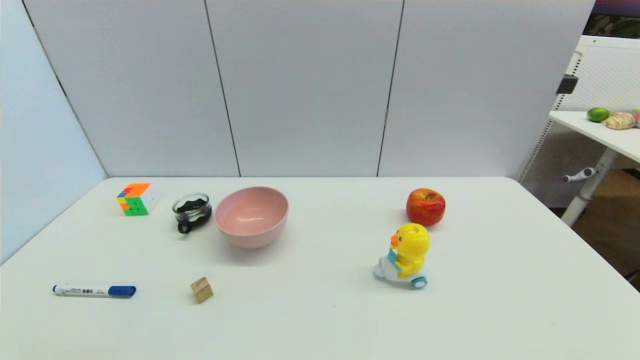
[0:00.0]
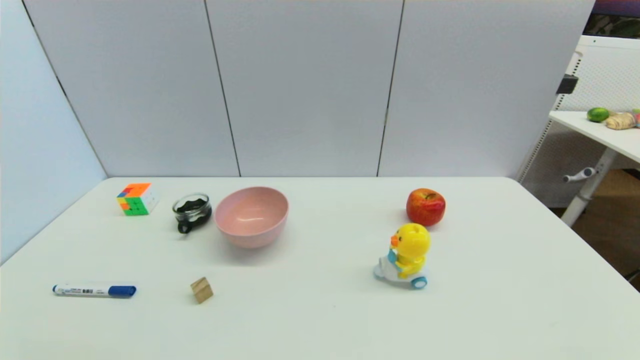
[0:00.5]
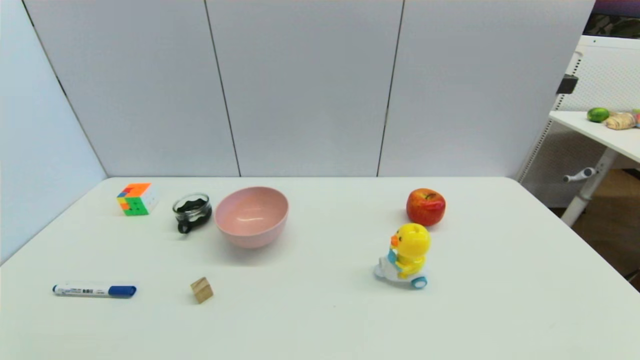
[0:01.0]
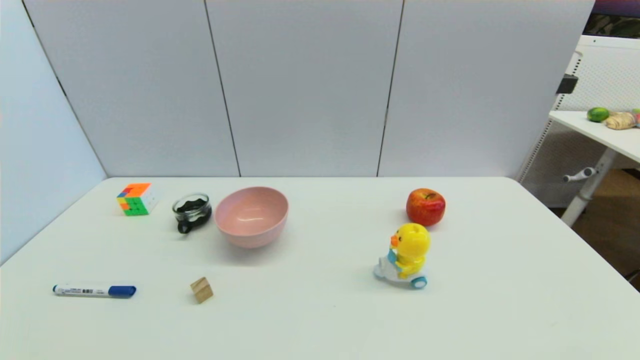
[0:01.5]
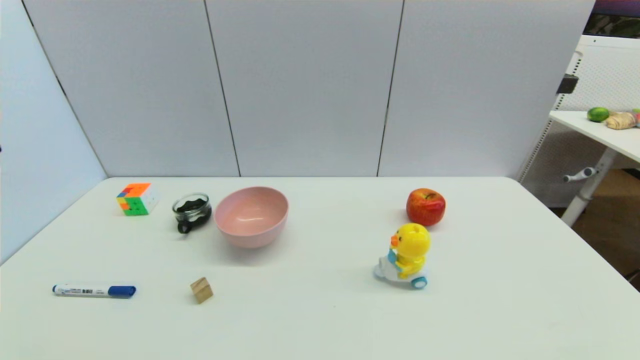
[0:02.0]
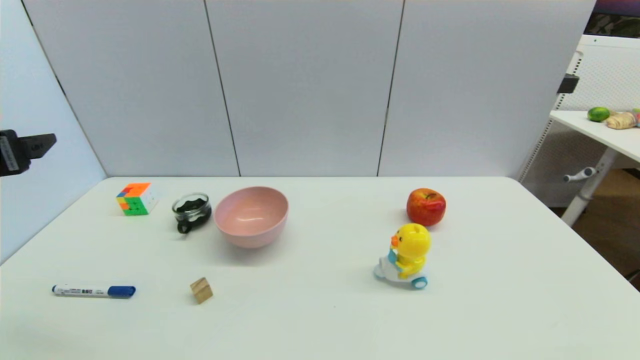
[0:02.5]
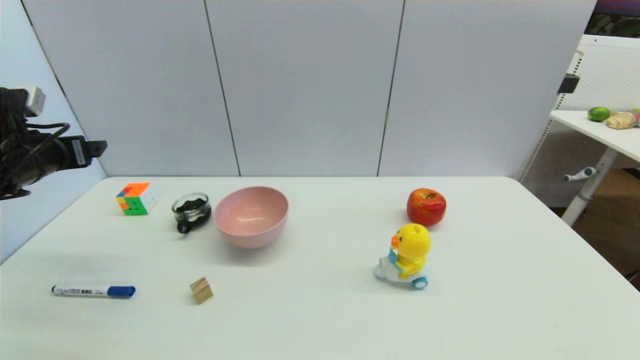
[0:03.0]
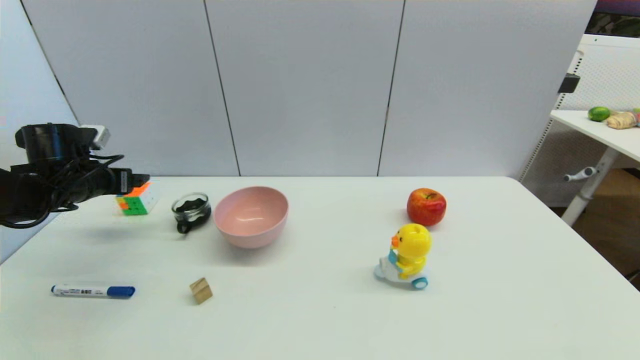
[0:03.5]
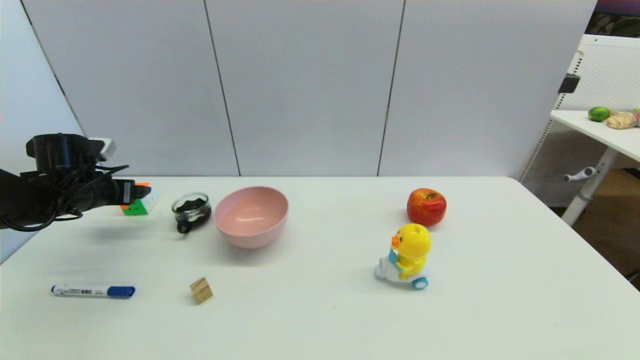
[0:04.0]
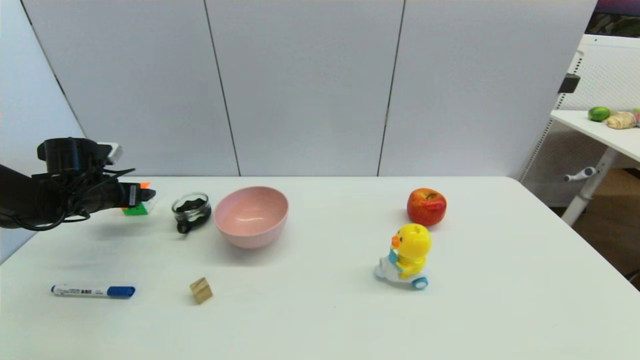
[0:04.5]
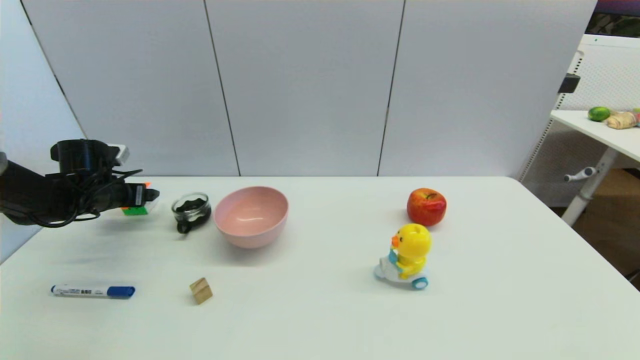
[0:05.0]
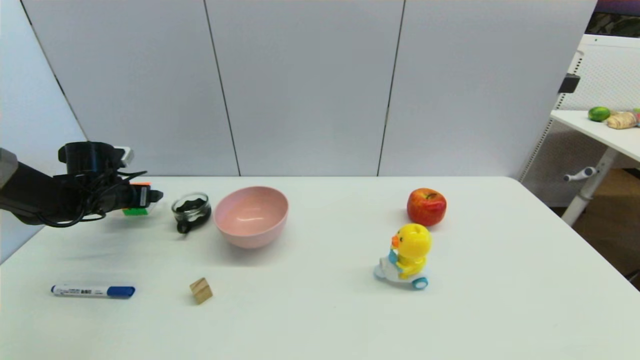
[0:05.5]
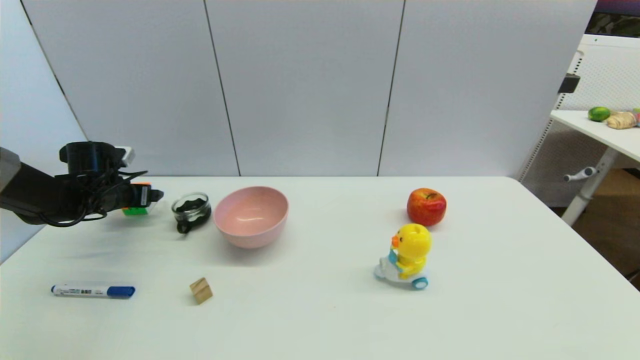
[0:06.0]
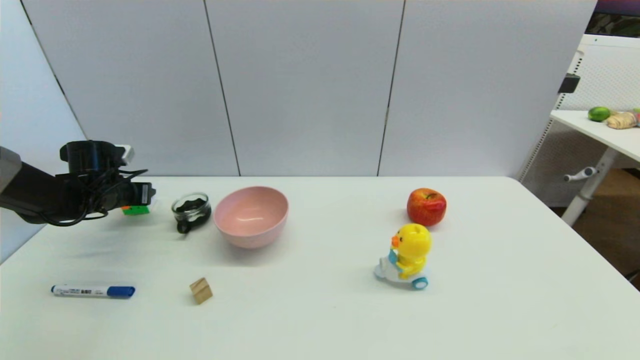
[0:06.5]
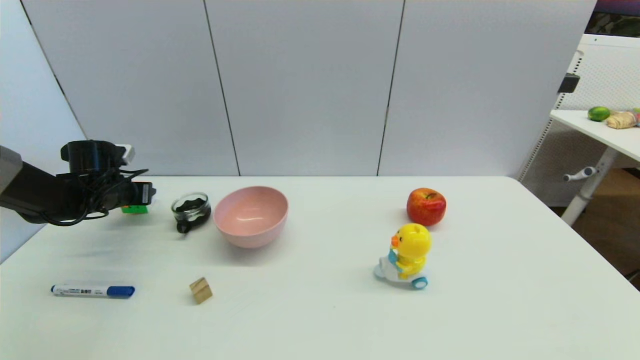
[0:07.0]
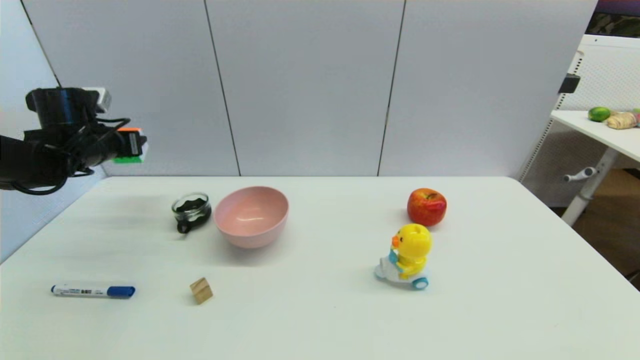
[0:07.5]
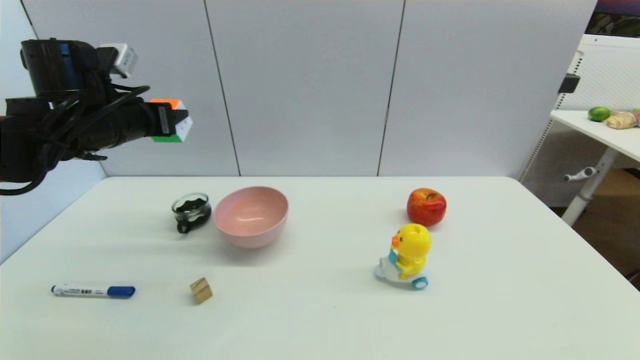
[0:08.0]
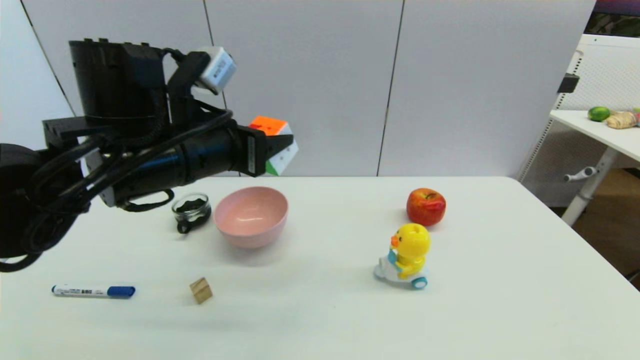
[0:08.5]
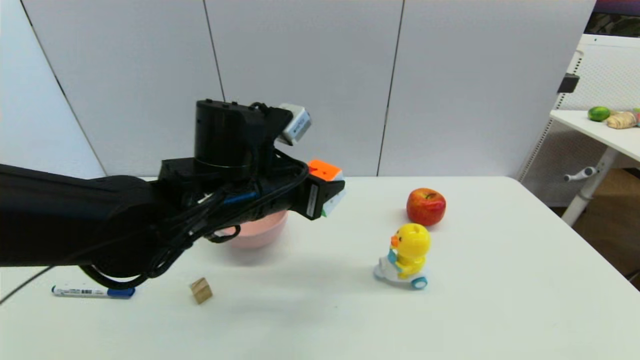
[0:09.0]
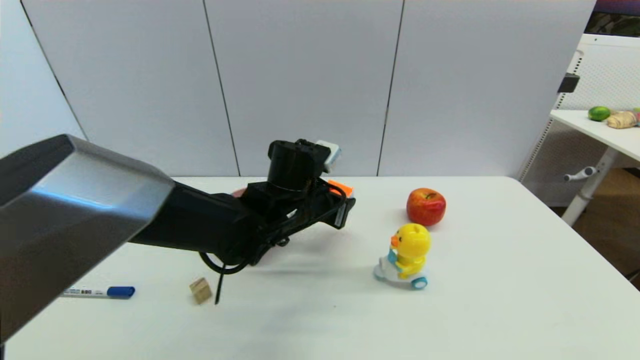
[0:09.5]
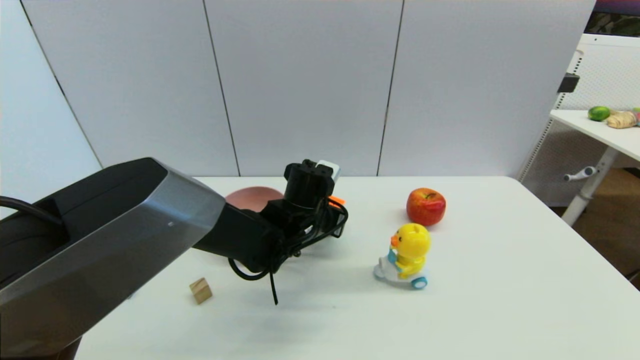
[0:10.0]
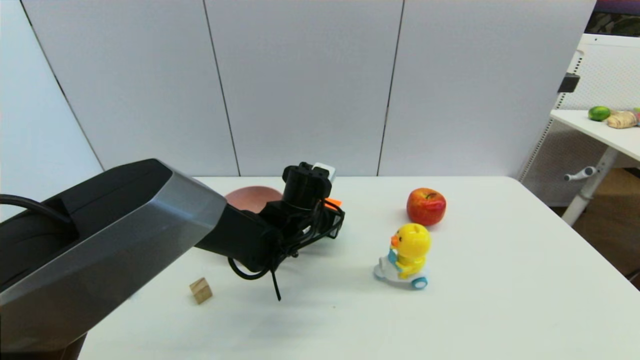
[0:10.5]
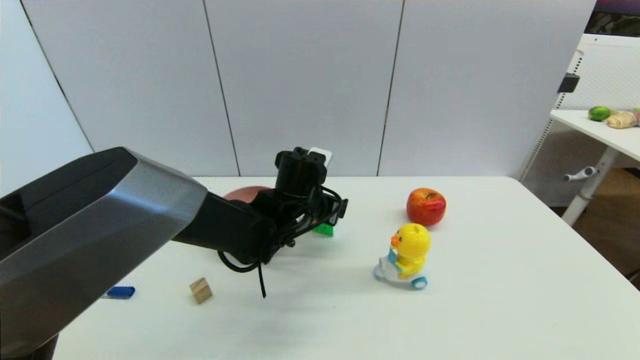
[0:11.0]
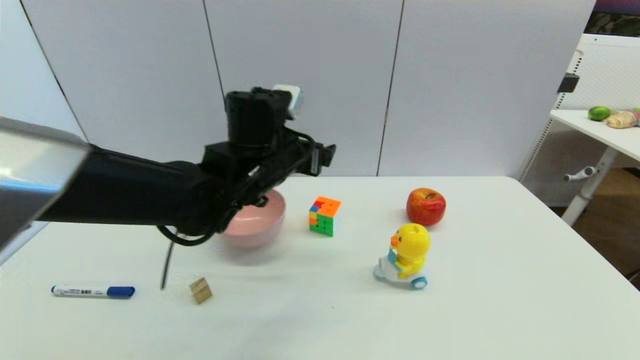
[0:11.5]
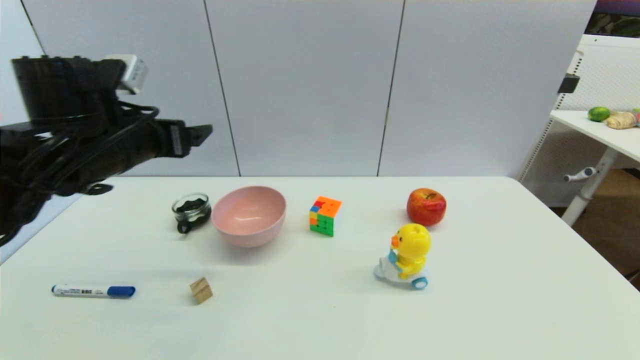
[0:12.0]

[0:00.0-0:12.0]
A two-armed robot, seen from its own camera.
Step, 0:02.0 to 0:06.5: Grasp the magic cube with left gripper.
Step, 0:07.0 to 0:11.0: Place the magic cube on the table with left gripper.
0:02.0 to 0:04.0: The left gripper heads forward and downward, covering some 30 cm.
0:04.0 to 0:06.0: There are only small adjustments of the grippers.
0:06.0 to 0:08.0: The left gripper travels upward, to the right and backward by some 20 cm, and closes up.
0:08.0 to 0:10.0: The left gripper shifts approximately 30 cm to the right and downward.
0:10.0 to 0:12.0: The left gripper moves to the left and upward, some 25 cm, and opens its fingers.

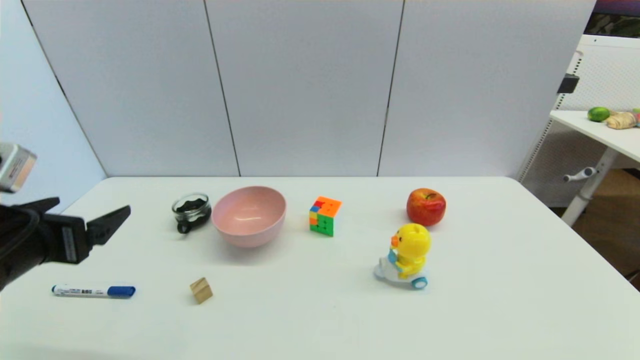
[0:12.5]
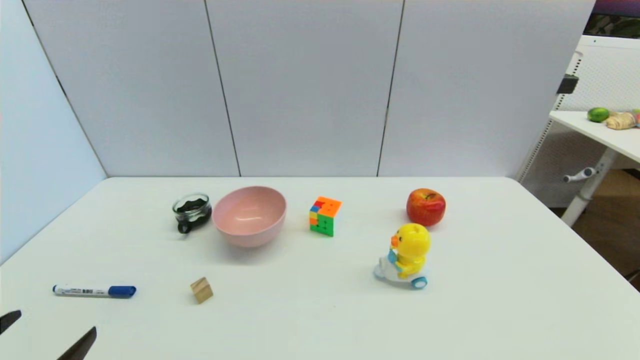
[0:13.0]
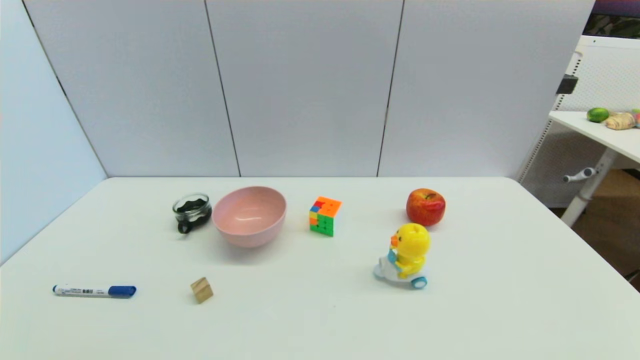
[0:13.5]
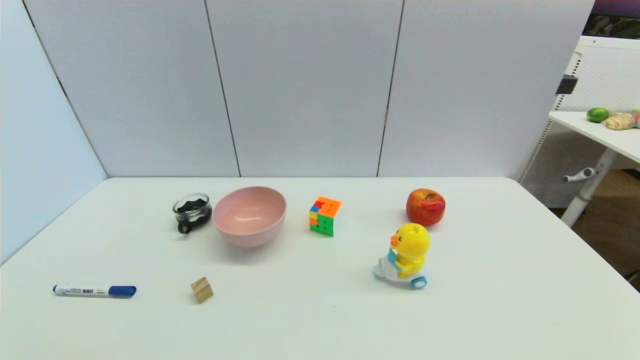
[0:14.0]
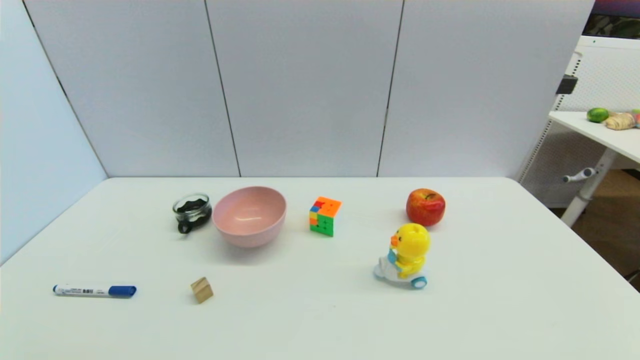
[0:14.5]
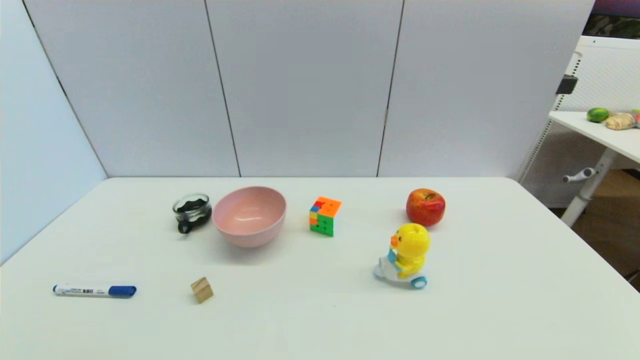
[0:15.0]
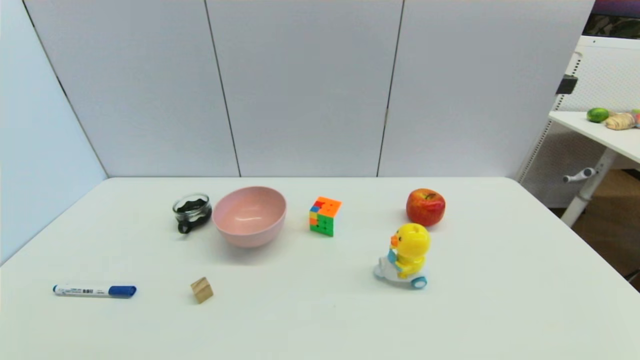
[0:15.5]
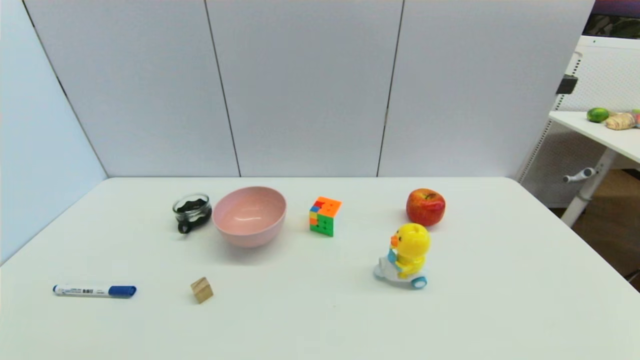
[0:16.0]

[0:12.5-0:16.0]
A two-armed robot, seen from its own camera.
0:12.5 to 0:14.5: The left gripper moves backward and downward, approximately 20 cm.
0:14.5 to 0:16.0: Both grippers stay put.
